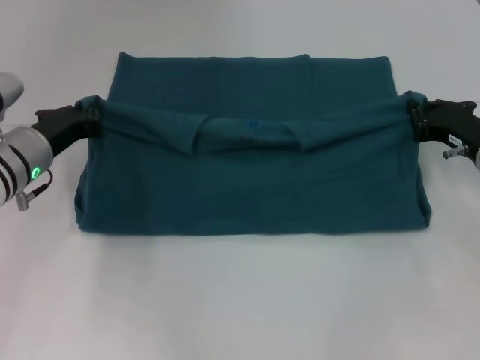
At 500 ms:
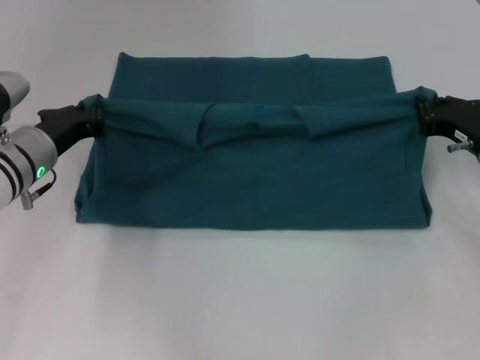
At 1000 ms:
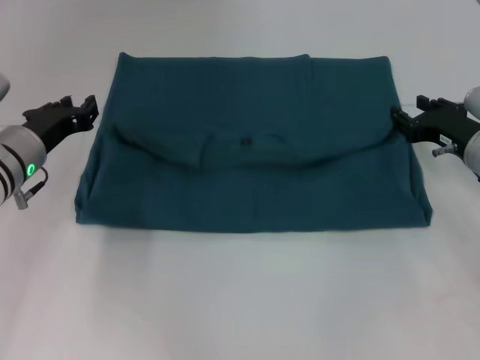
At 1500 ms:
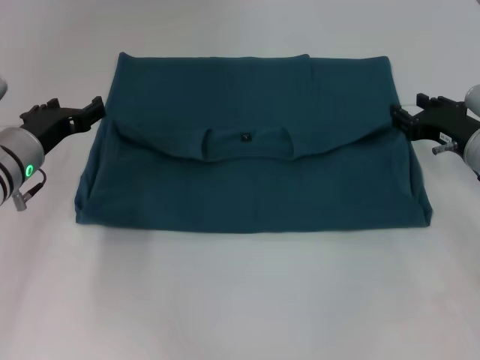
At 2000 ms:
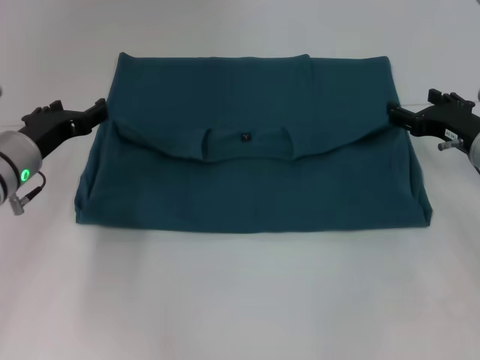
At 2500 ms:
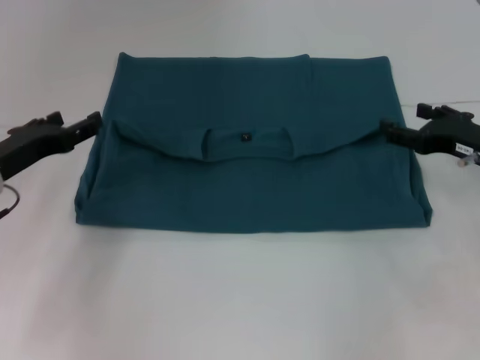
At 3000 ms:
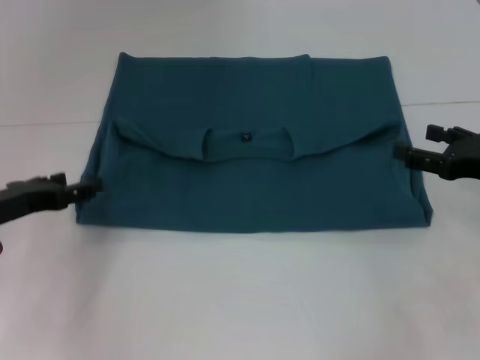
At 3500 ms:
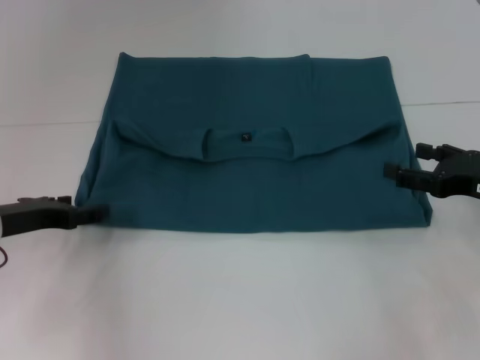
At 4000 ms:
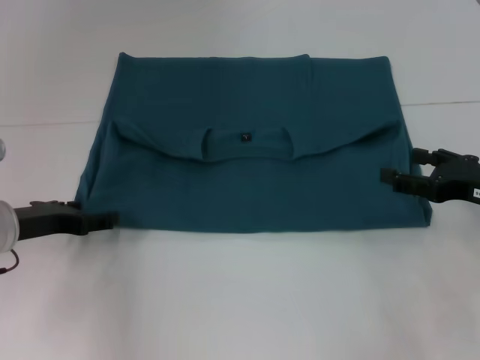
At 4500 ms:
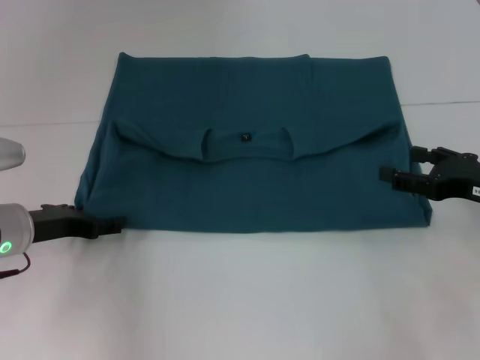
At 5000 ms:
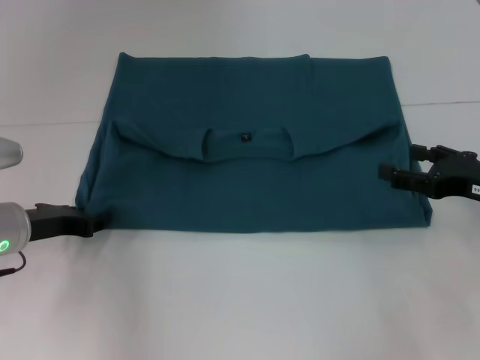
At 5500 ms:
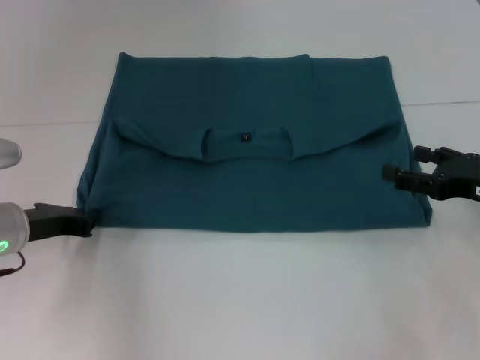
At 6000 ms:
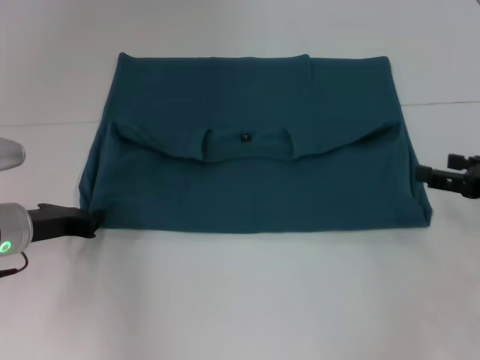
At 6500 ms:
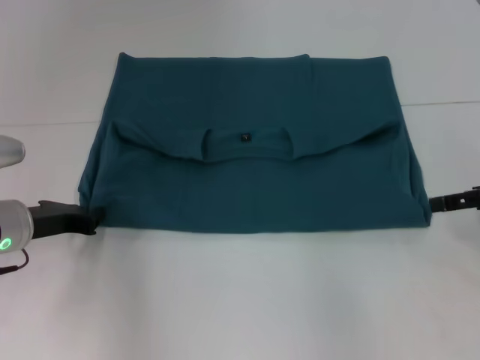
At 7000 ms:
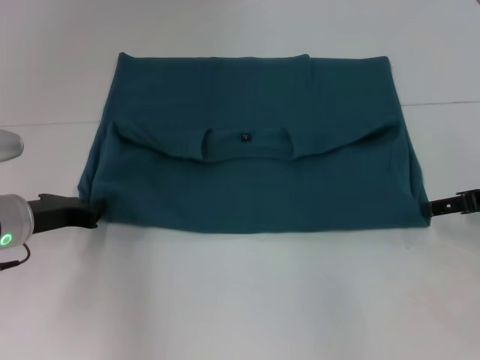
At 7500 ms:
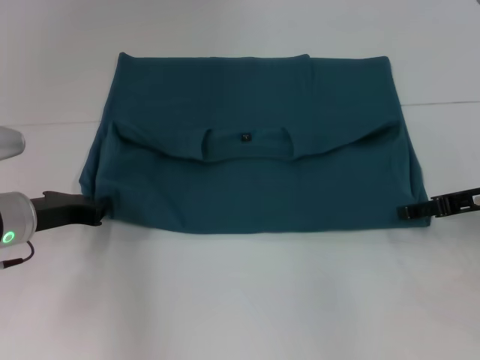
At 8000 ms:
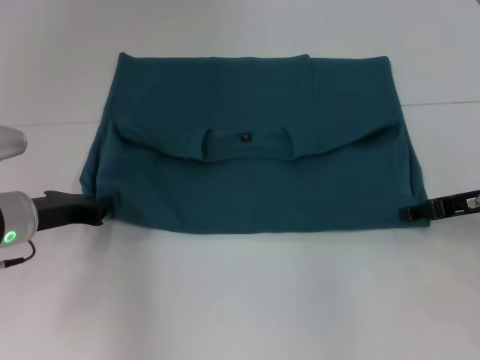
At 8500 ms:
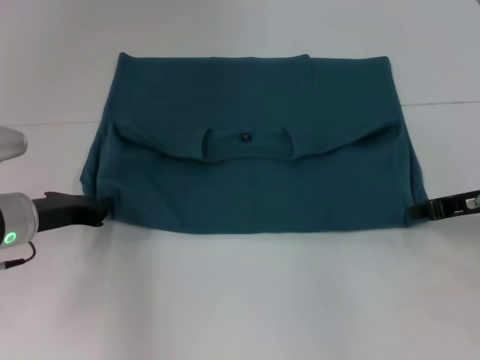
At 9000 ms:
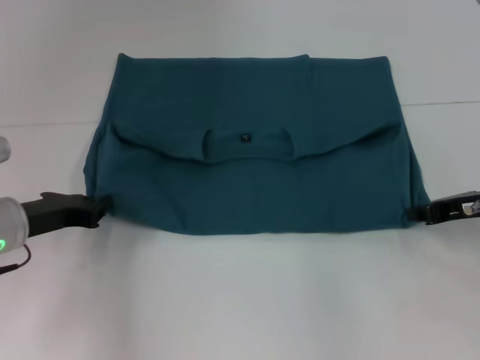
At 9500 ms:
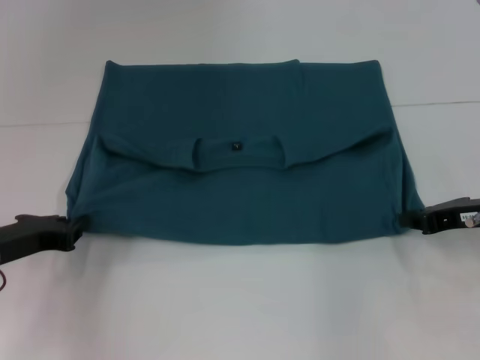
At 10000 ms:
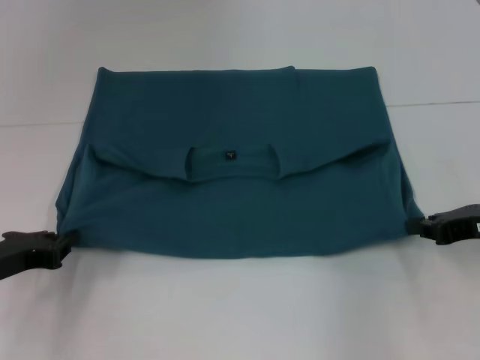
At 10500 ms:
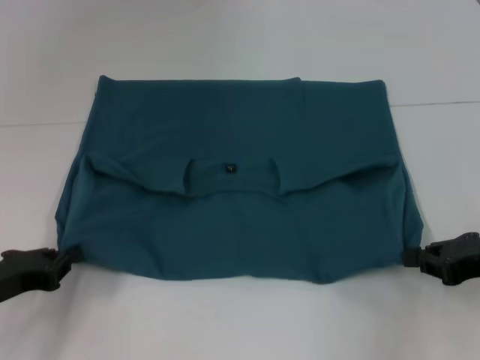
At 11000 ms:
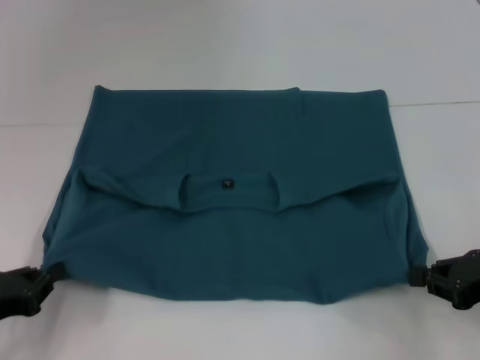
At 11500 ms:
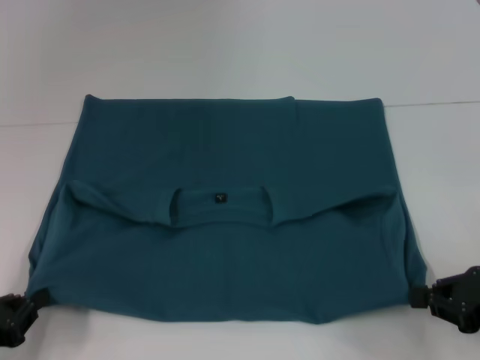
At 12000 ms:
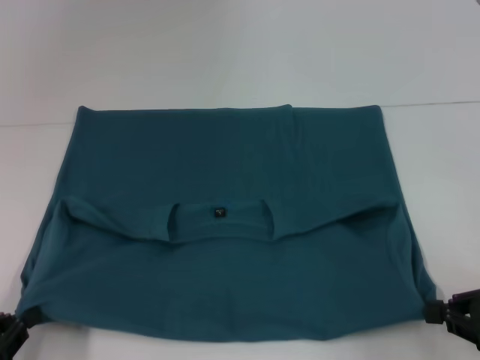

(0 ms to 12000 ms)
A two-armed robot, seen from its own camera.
0 ms - 2000 ms: The right gripper opens up. Meanwhile the left gripper opens its fingers.
2000 ms - 4000 ms: The right gripper travels backward by about 10 cm. The left gripper is displaced backward by some 5 cm.
4000 ms - 6000 ms: The left gripper closes its fingers.
6000 ms - 8000 ms: The right gripper changes place by about 5 cm.
8000 ms - 10000 ms: The right gripper closes up. Meanwhile the left gripper heads backward and to the left, covering roughly 10 cm.
10000 ms - 12000 ms: Both grippers travel together backward, some 10 cm.

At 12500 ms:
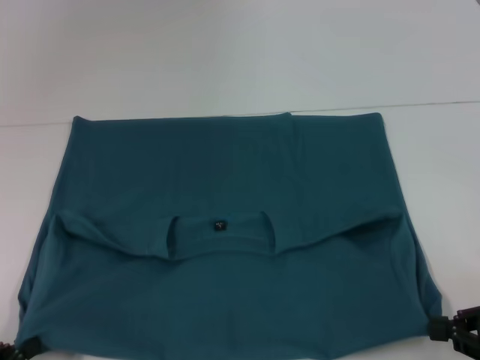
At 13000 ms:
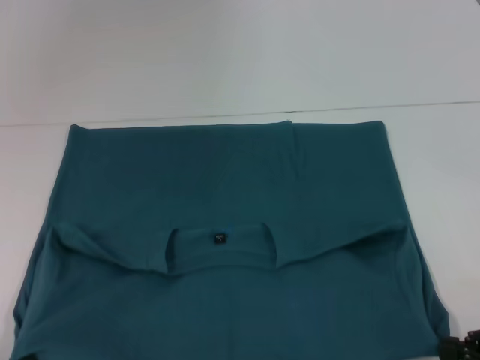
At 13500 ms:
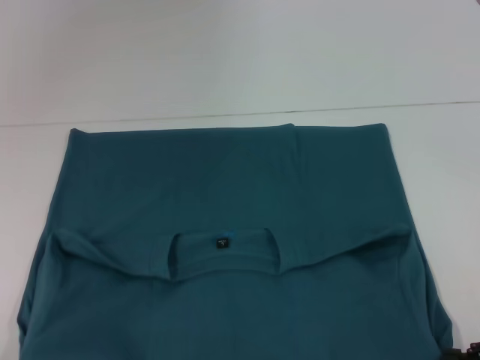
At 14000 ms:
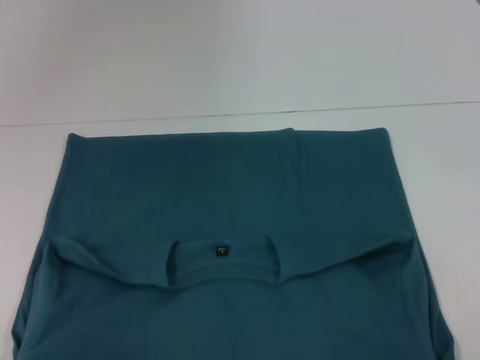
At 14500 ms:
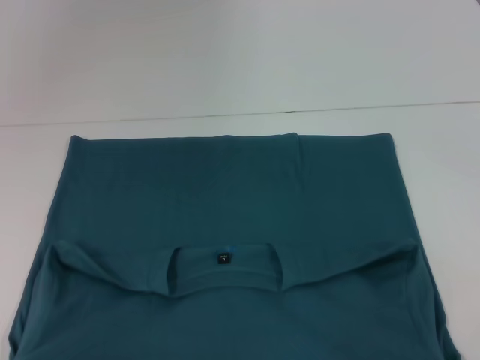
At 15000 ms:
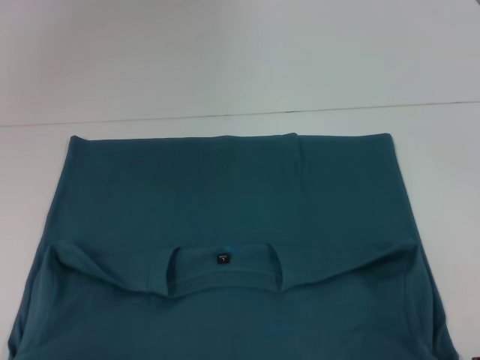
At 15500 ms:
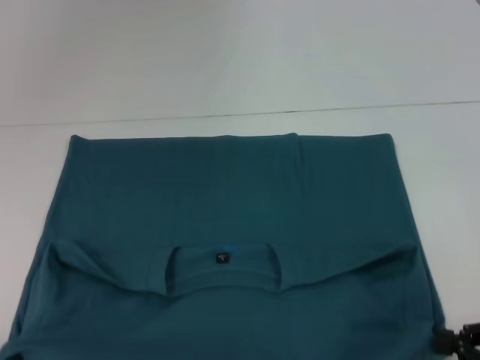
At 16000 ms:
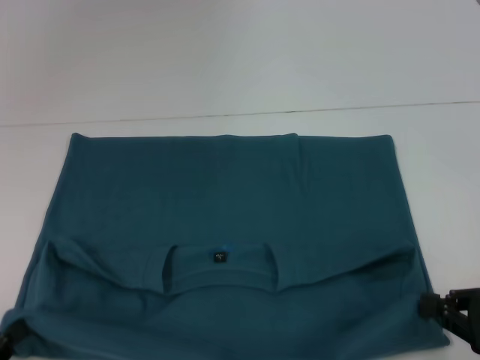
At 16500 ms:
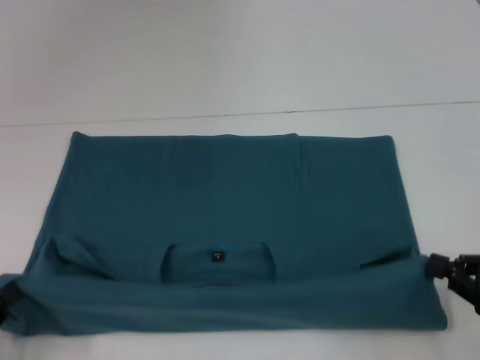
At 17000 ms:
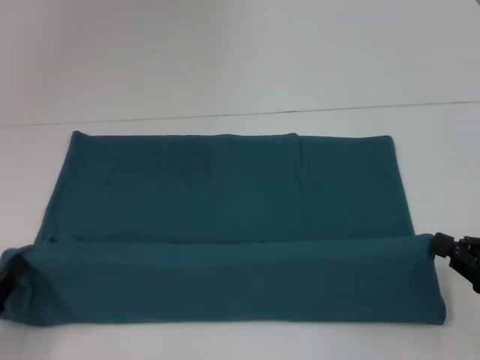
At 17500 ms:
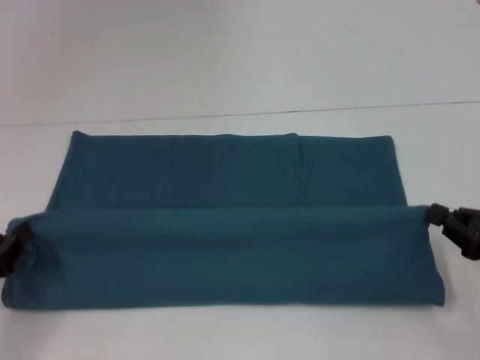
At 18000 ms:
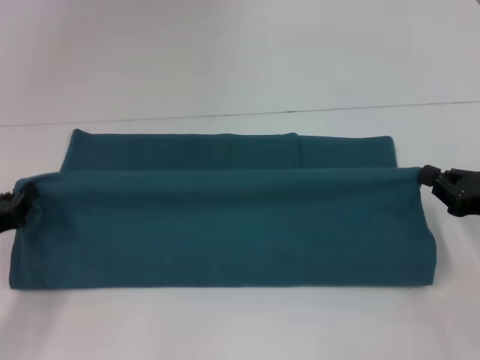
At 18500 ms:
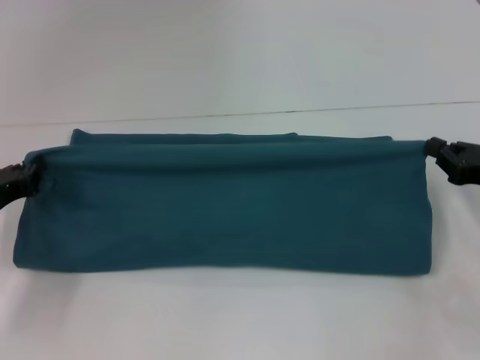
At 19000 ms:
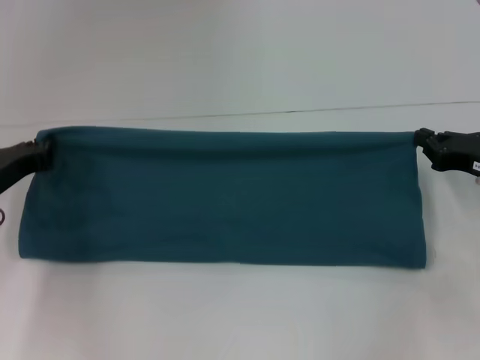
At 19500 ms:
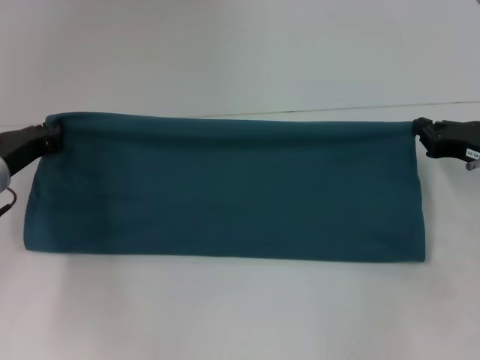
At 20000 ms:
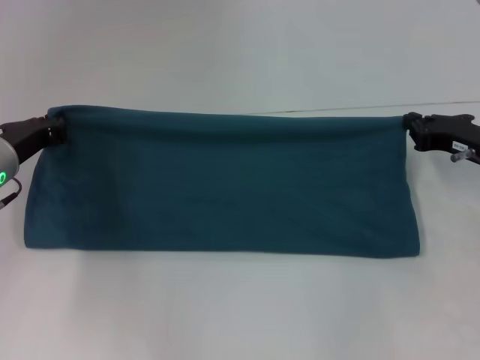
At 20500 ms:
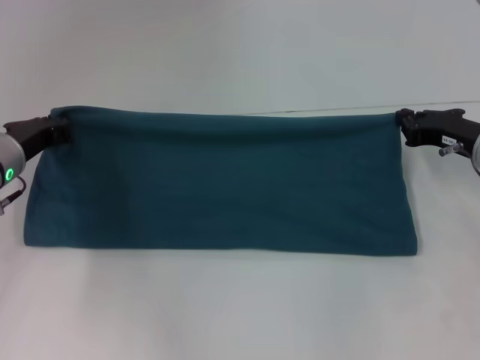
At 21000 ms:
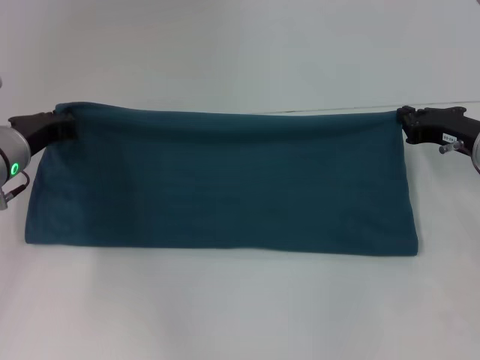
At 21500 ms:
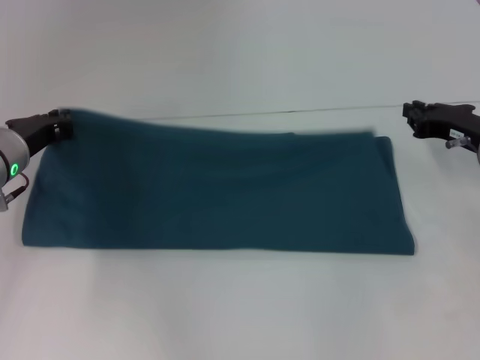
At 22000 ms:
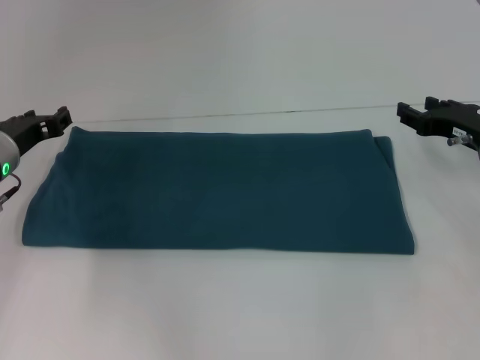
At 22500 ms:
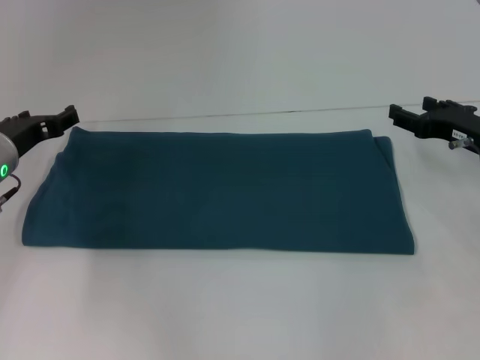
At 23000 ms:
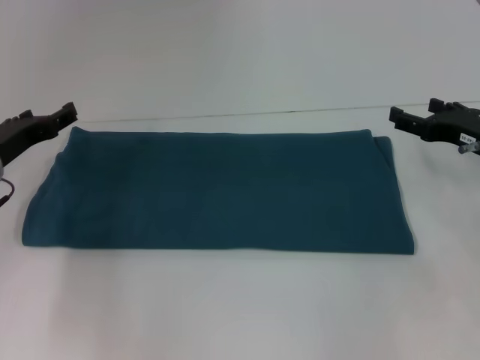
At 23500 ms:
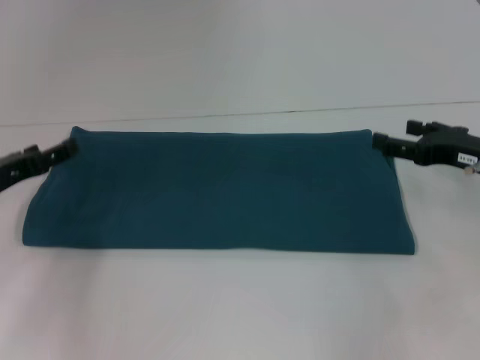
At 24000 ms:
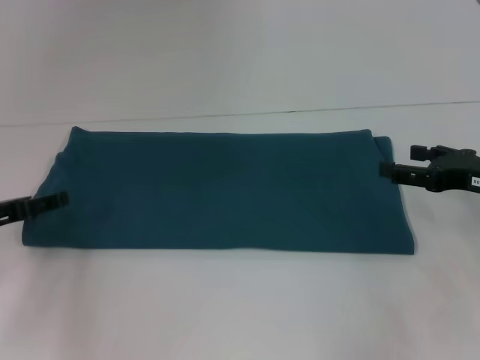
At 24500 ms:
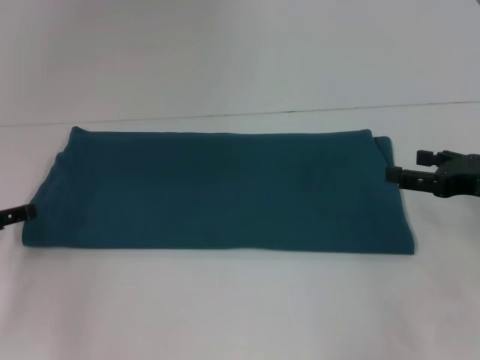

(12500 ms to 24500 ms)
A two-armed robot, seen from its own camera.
Step, 12500 ms - 14500 ms: Pull the clothes with your left hand.
Step, 12500 ms - 14500 ms: Pull the clothes with your right hand.
Step, 15000 ms - 21500 ms: Fold the clothes to the right.
12500 ms - 14500 ms: The right gripper goes roughly 5 cm backward.
14500 ms - 16500 ms: Both grippers move forward, some 5 cm.
16500 ms - 18500 ms: The left gripper travels forward by about 15 cm; the right gripper heads forward, covering approximately 10 cm.
18500 ms - 20500 ms: The left gripper is displaced forward and to the right by some 10 cm; the right gripper goes about 5 cm forward.
20500 ms - 22500 ms: The left gripper opens up. Meanwhile the right gripper opens.
22500 ms - 24500 ms: The left gripper moves backward and to the left, roughly 15 cm; the right gripper is displaced backward by some 5 cm.

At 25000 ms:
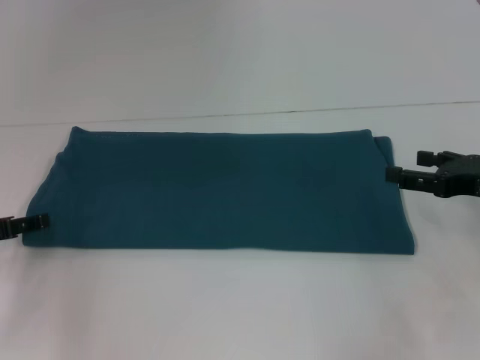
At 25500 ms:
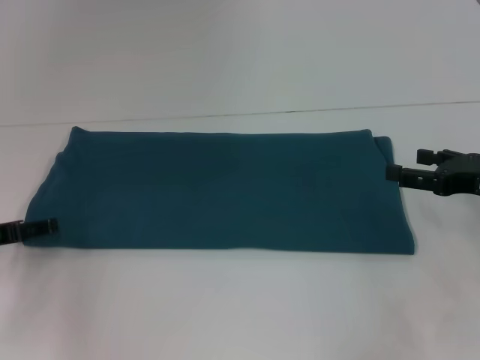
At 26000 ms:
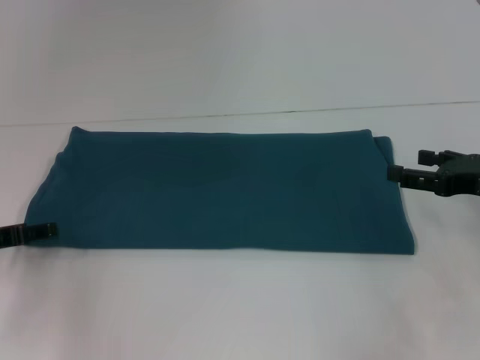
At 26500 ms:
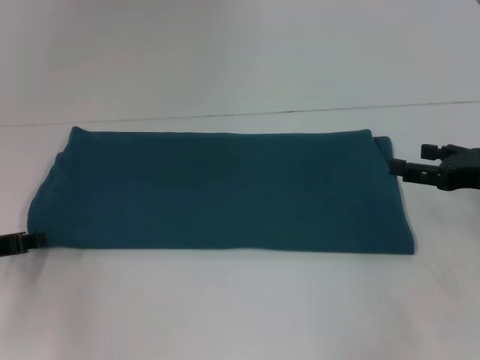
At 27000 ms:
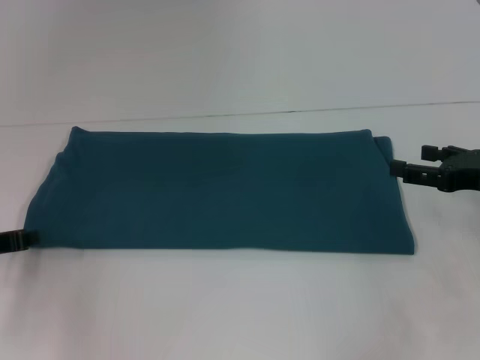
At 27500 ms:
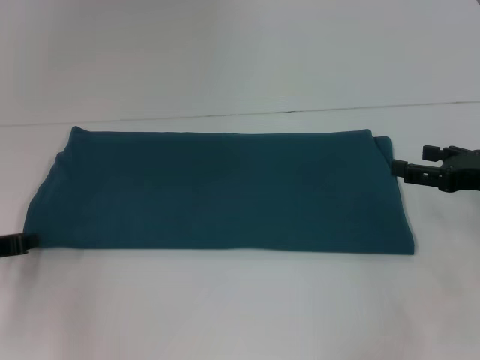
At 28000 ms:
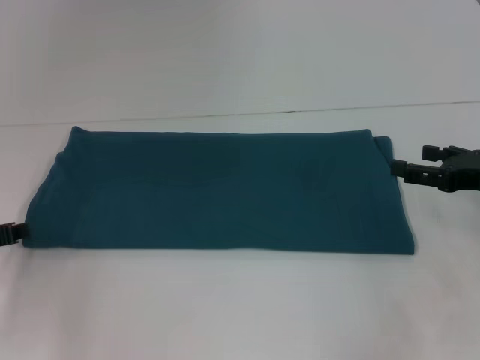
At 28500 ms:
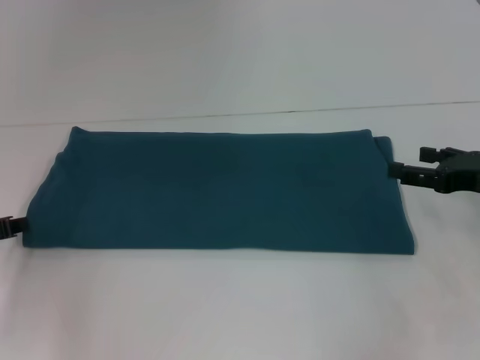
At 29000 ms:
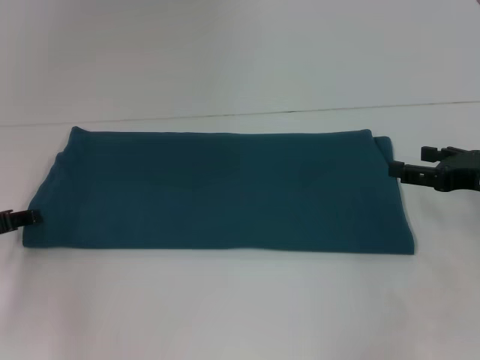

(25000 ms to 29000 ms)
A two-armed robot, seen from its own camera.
25000 ms - 27000 ms: The left gripper closes up.
27000 ms - 29000 ms: The grippers stay close to where they were, moving slightly.
